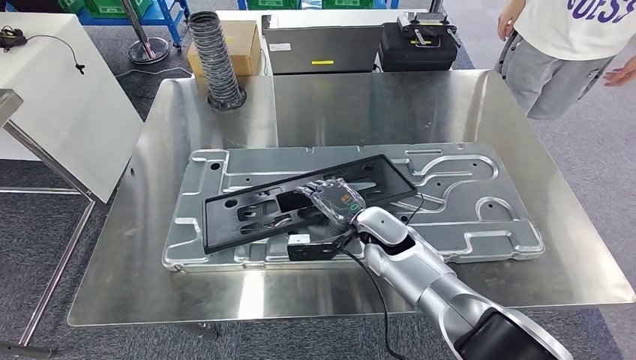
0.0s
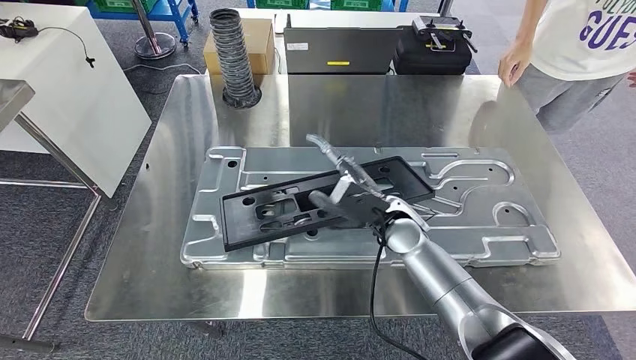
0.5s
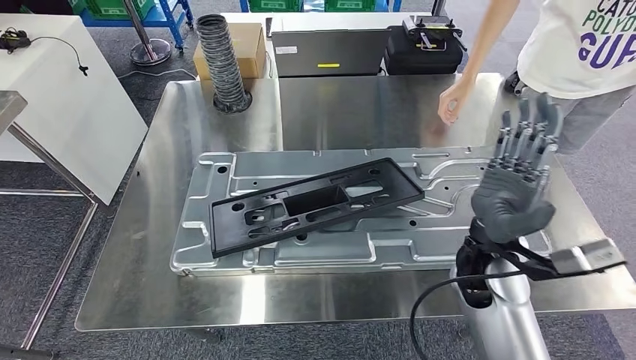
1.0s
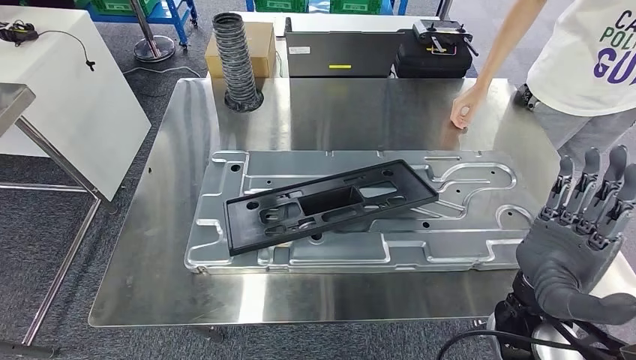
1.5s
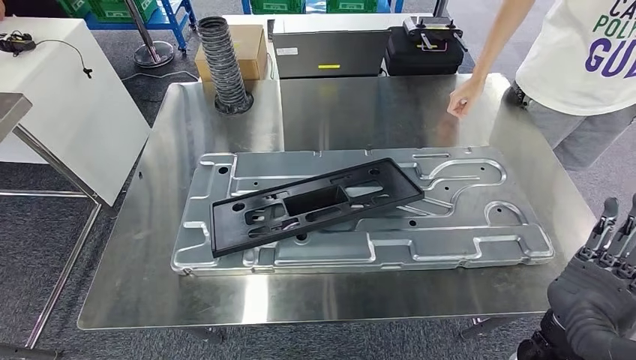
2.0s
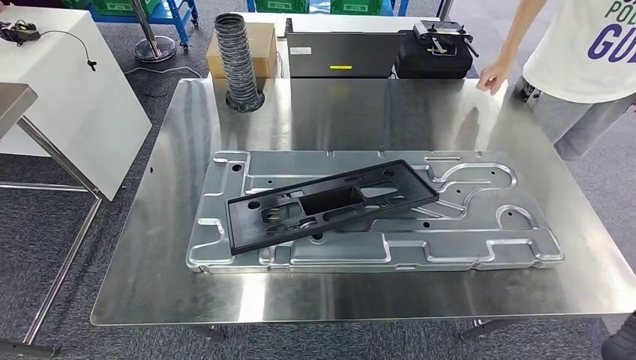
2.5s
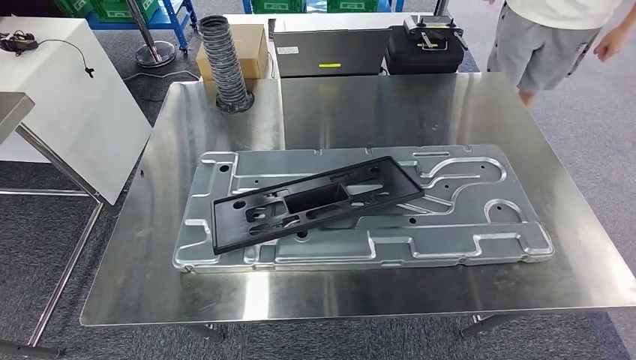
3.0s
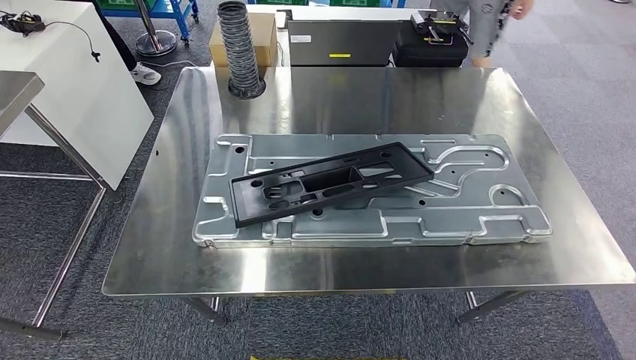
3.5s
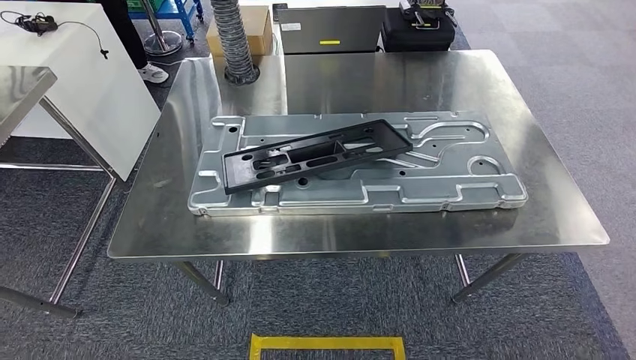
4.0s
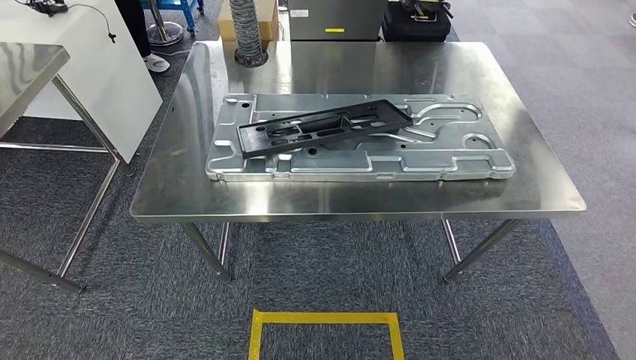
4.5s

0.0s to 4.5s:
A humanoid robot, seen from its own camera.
Step, 1.5s to 4.5s: Move to the initial position of the shelf.
